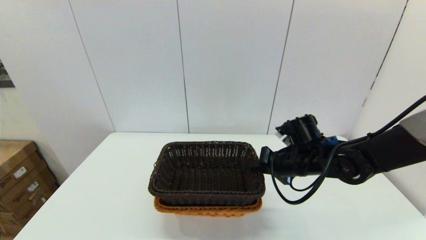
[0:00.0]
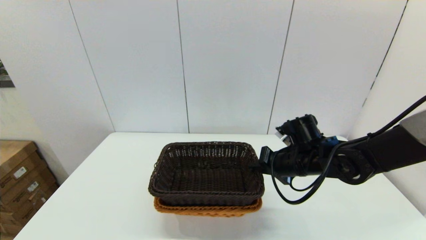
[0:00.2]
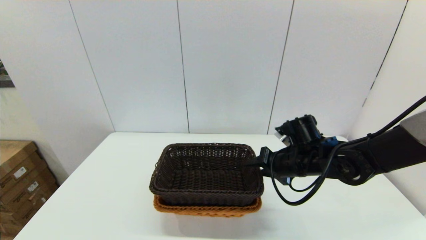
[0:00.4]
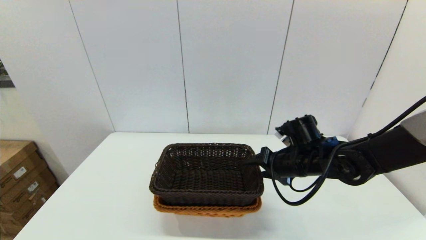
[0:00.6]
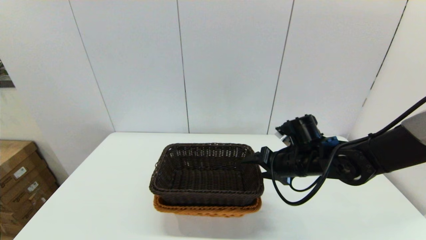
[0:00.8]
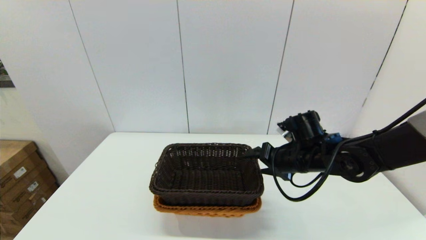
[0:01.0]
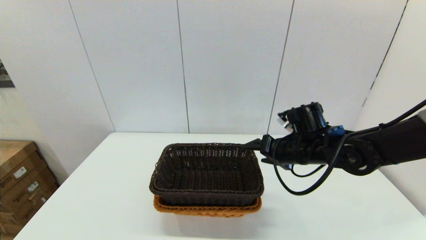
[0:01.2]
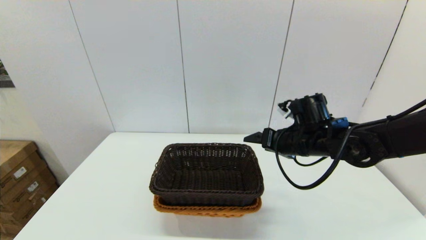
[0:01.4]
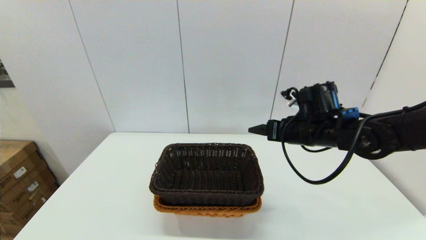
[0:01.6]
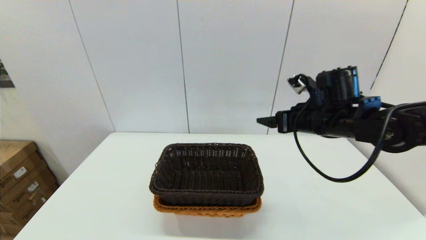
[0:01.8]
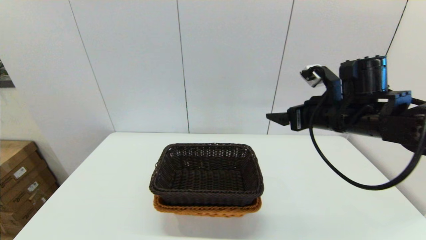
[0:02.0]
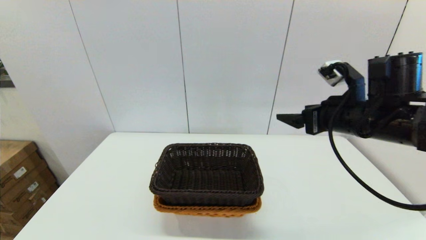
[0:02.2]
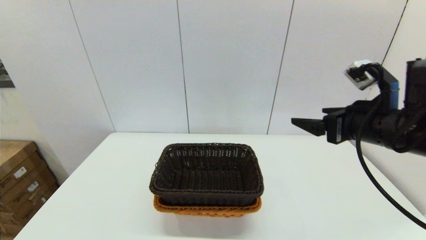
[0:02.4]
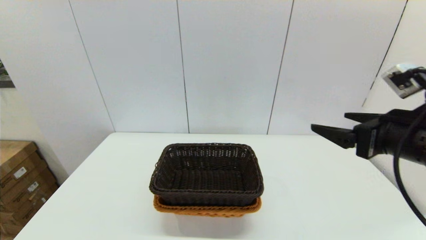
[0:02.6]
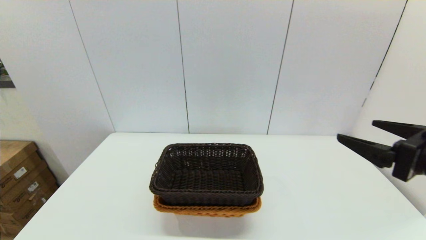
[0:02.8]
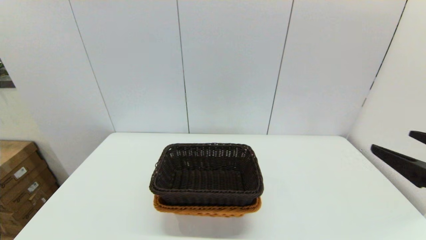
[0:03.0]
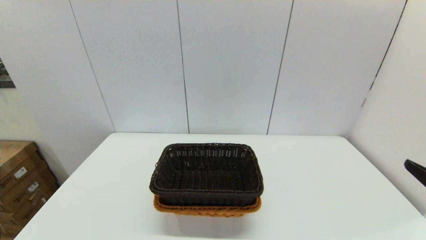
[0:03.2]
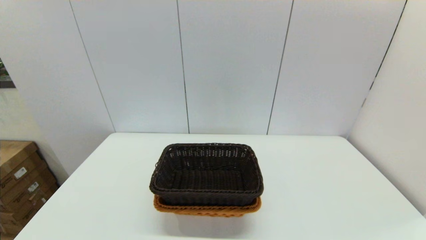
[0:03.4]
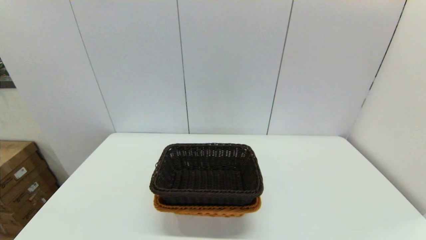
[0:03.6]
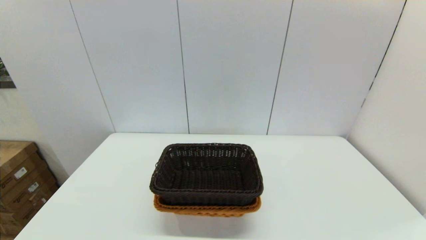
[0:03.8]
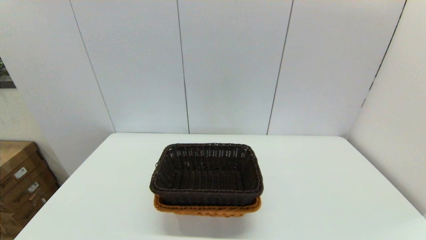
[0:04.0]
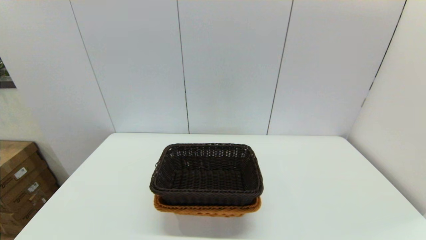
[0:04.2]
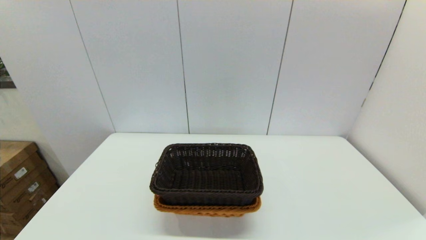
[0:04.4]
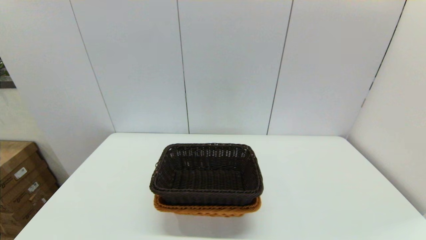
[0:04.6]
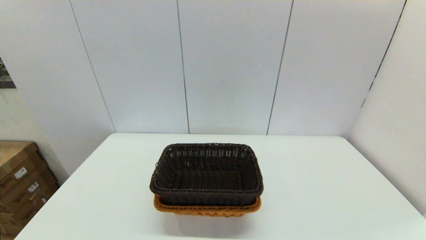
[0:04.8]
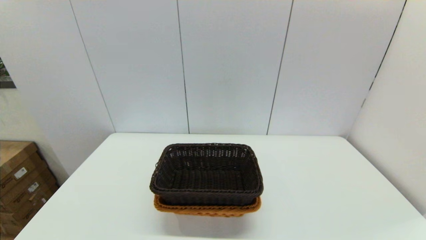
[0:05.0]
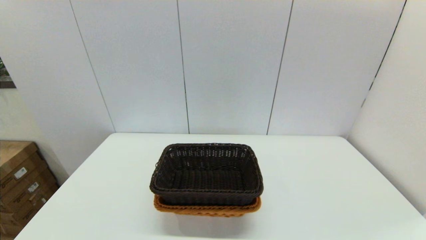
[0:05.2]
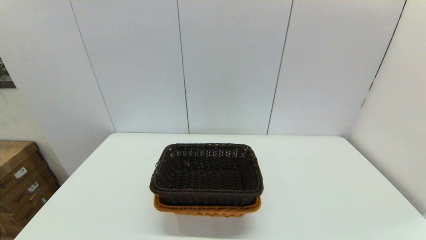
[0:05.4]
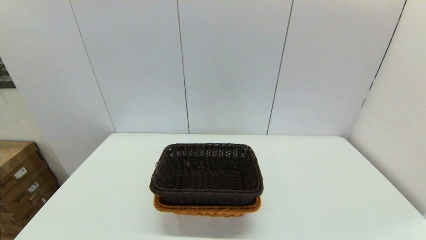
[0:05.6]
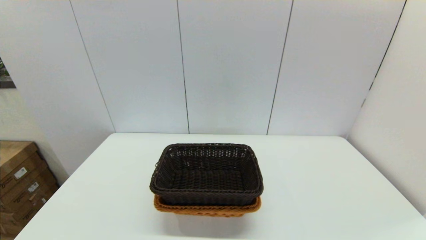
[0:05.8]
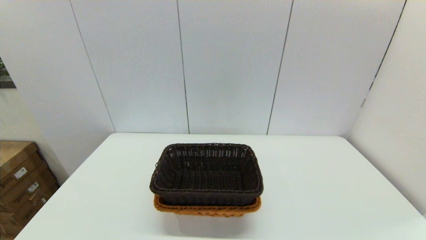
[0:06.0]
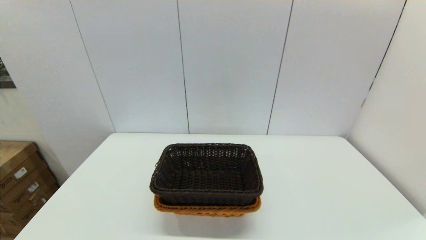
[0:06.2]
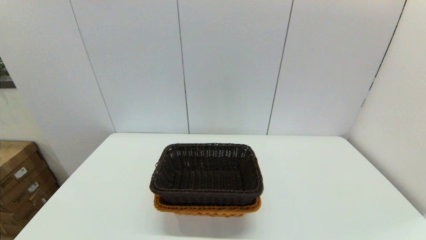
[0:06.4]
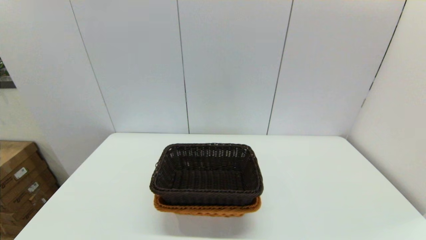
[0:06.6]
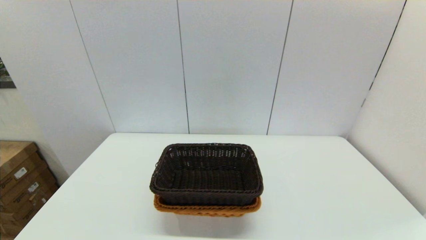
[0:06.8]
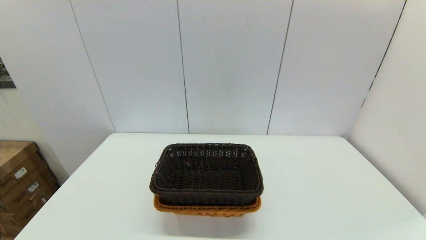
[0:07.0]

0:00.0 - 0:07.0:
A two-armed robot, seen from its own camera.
Task of the whole recording: stack a basket on top of another basket.
0:00.0 - 0:01.4: The right gripper shifts by about 5 cm, and opens up.
0:01.4 - 0:02.8: The right gripper travels backward, to the right and upward by roughly 25 cm.
0:02.8 - 0:04.2: The right gripper is displaced backward and downward by approximately 20 cm.
0:05.6 - 0:07.0: Both grippers stay put.

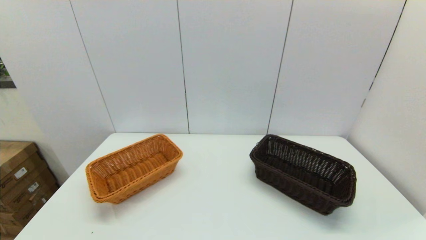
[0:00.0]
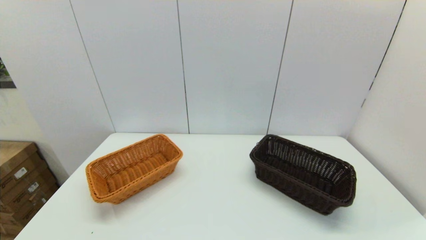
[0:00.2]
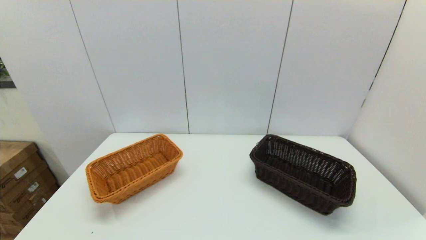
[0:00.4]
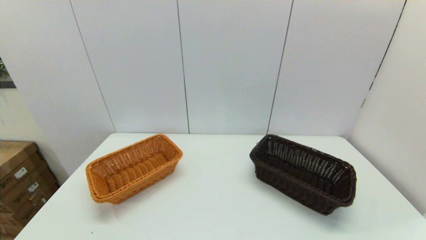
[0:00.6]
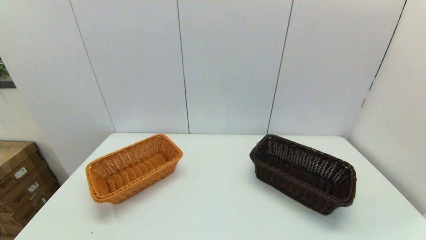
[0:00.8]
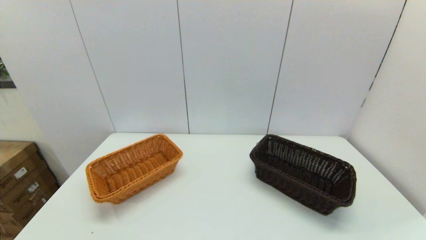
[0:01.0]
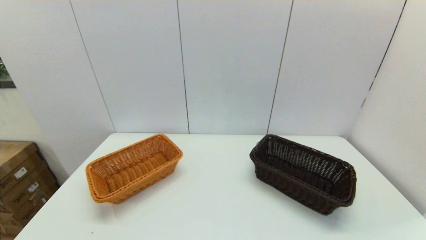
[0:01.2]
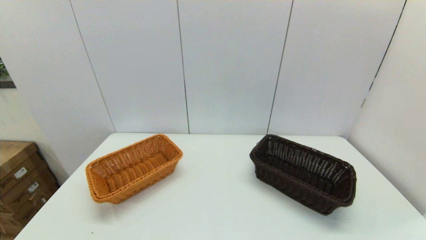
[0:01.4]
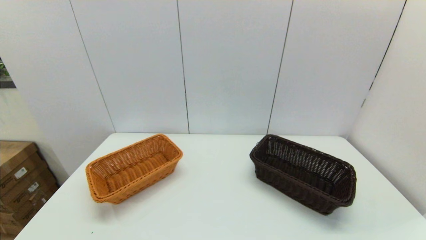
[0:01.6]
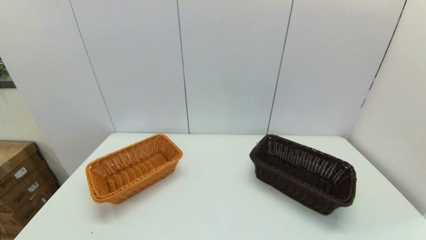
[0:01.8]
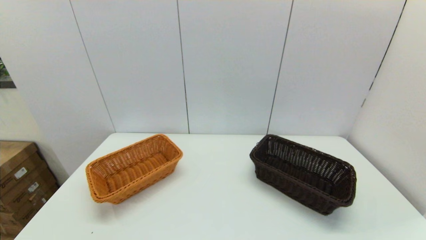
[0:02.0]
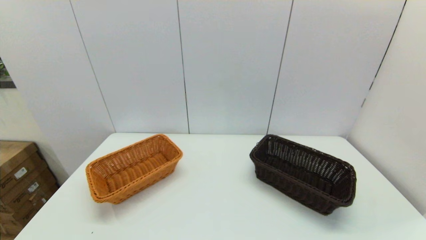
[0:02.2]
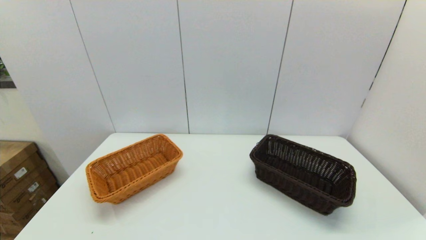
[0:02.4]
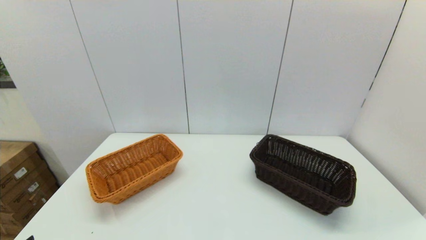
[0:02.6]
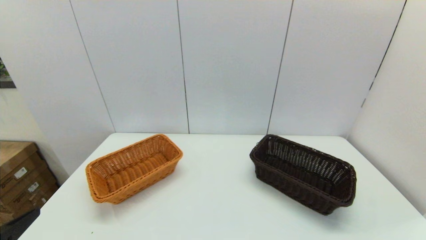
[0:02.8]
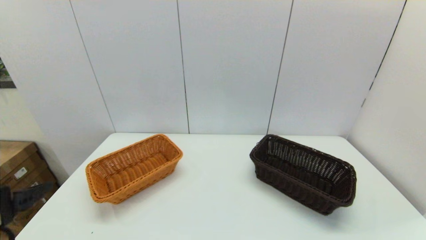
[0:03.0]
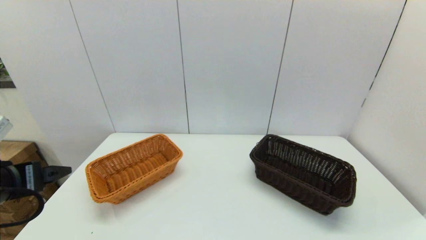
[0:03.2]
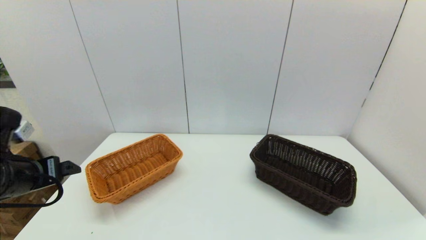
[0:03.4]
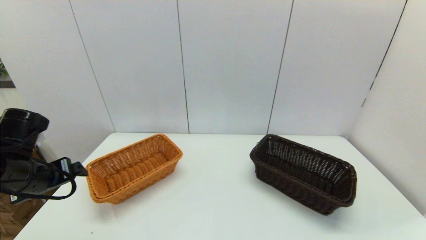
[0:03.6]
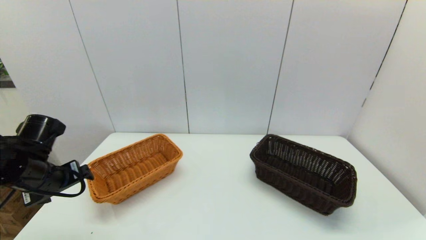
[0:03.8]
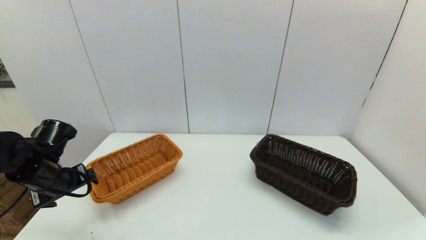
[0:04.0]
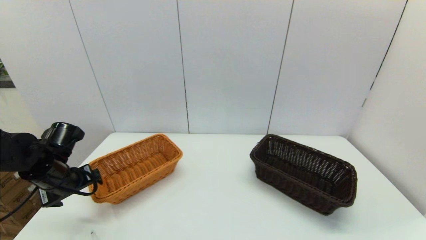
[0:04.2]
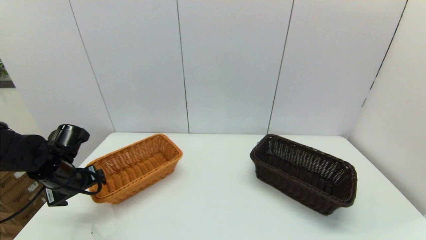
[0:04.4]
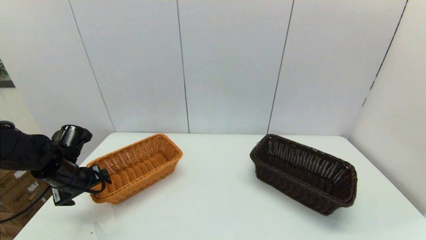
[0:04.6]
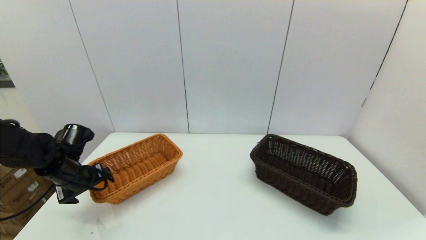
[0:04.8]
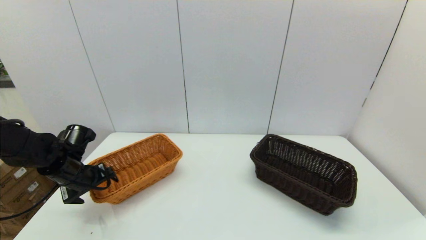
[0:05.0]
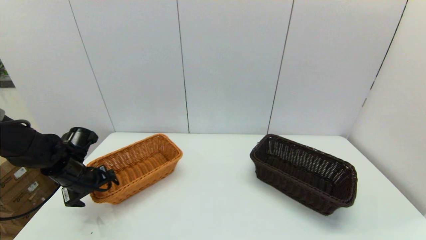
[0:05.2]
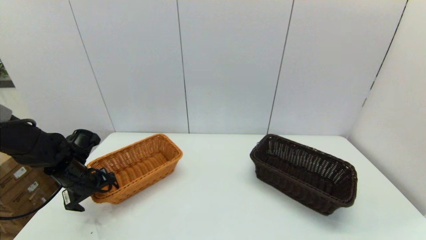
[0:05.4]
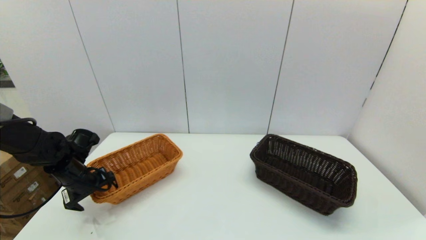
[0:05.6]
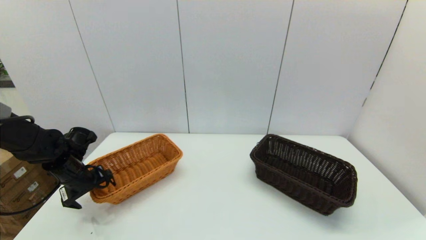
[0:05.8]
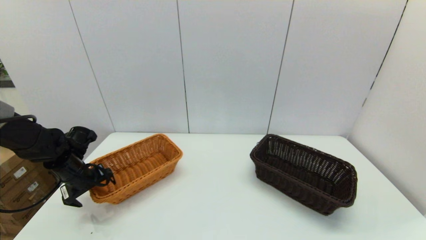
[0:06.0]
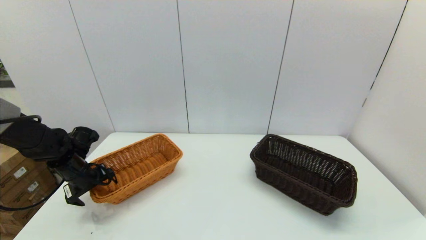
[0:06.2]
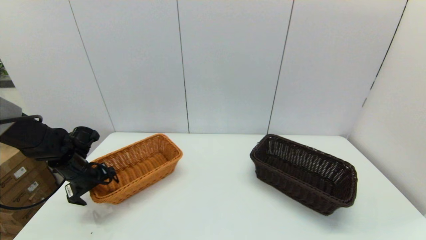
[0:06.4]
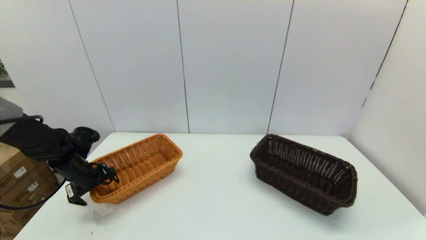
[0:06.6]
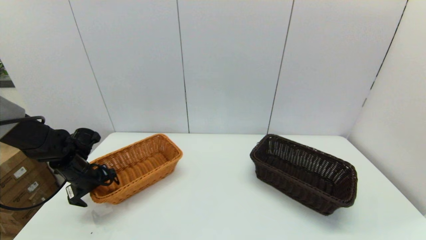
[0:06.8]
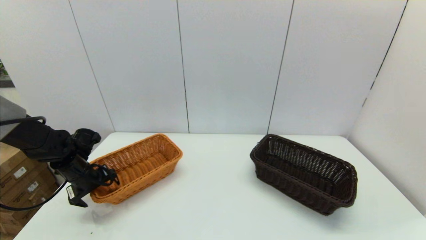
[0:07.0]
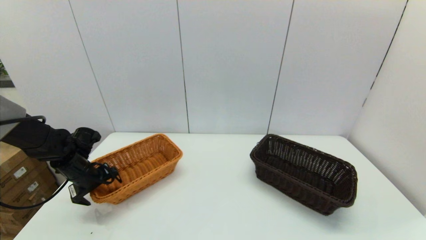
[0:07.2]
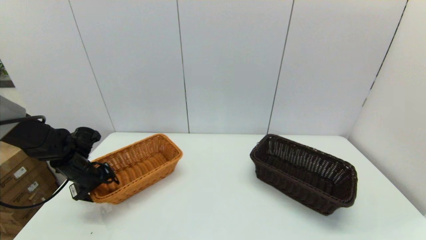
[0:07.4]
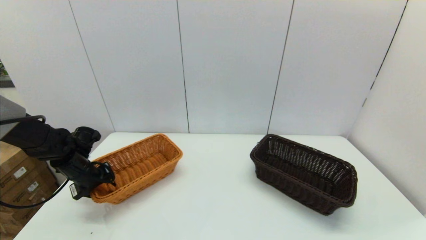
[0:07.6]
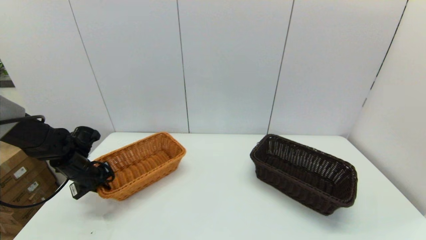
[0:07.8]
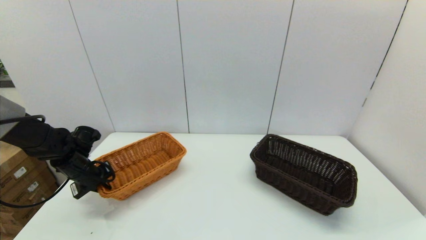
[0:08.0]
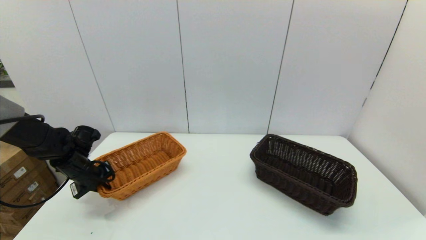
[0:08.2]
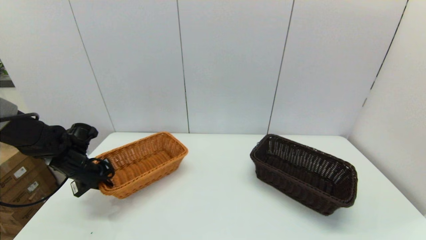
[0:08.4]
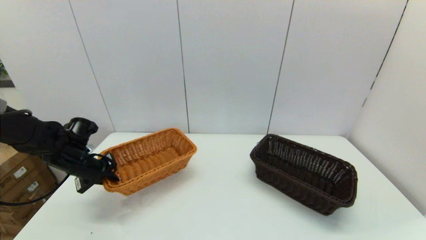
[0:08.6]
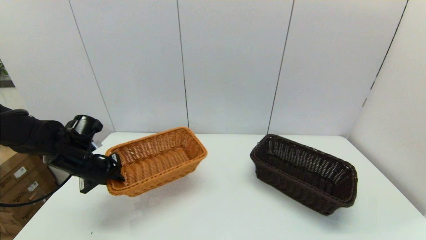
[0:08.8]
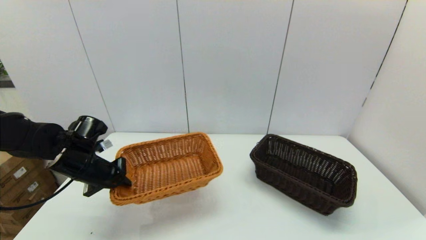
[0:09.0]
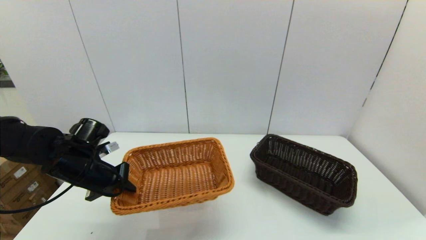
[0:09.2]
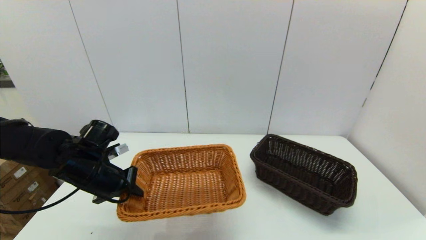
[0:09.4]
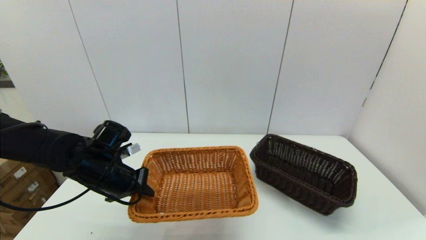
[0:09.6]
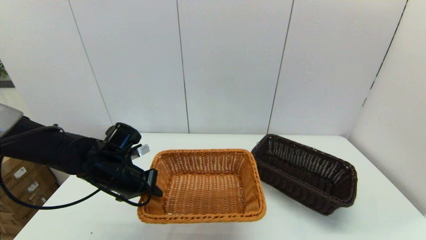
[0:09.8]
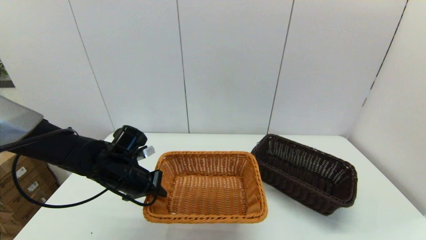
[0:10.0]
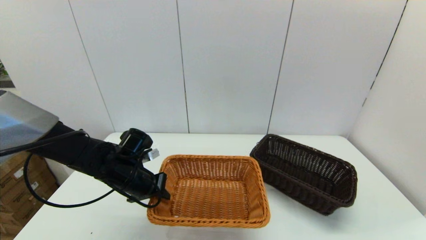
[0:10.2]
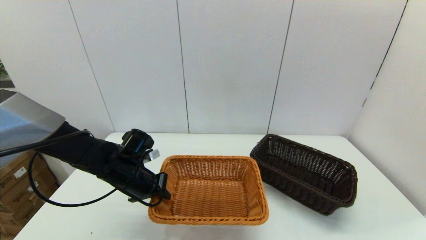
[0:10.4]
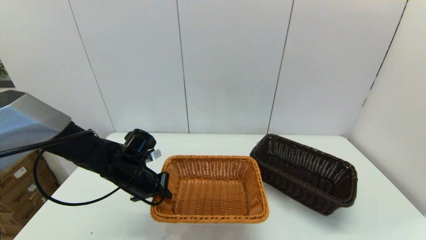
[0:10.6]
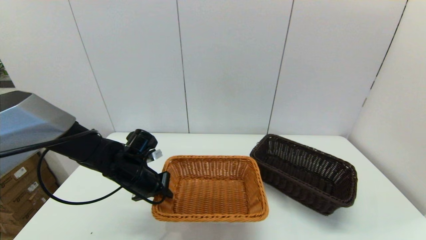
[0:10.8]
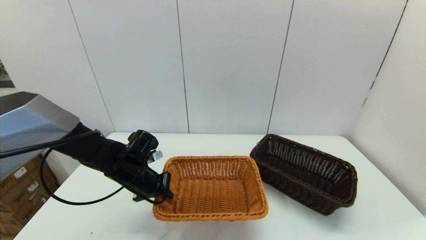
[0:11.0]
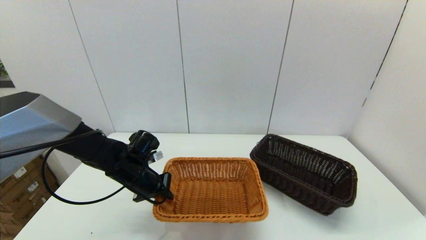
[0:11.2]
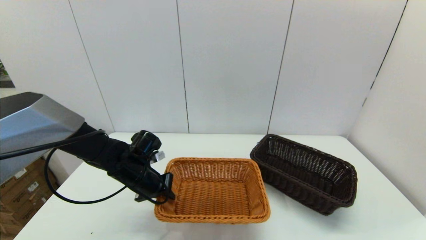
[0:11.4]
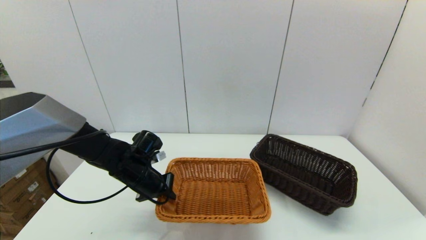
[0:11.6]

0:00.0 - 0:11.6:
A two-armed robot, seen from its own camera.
Task of the whole recording: stack a basket on top of another basket.
Step, 0:02.2 - 0:08.0: Grasp the light basket with the left gripper.
0:00.0 - 0:01.4: Both grippers stay about where they are.
0:02.8 - 0:04.4: The left gripper travels forward and downward by approximately 25 cm.
0:04.4 - 0:05.8: The grippers move only a little.
0:05.8 - 0:07.2: The grippers stay close to where they were, moving slightly.
0:07.2 - 0:08.8: The left gripper goes some 5 cm upward, and closes its fingers.
0:08.8 - 0:10.2: The left gripper is displaced to the right by some 10 cm.
0:10.2 - 0:11.6: The grippers make only small movements.
